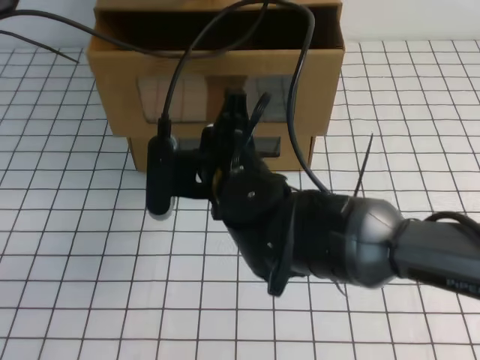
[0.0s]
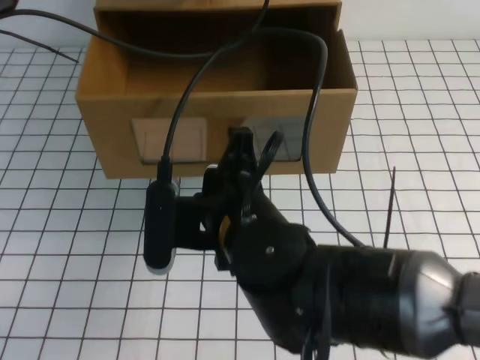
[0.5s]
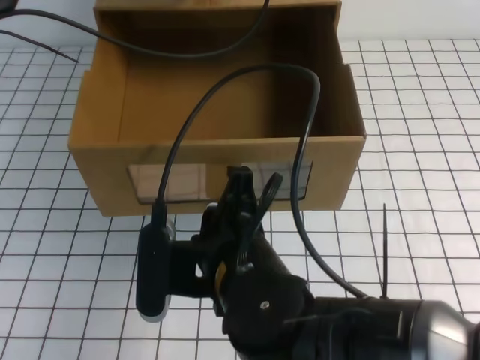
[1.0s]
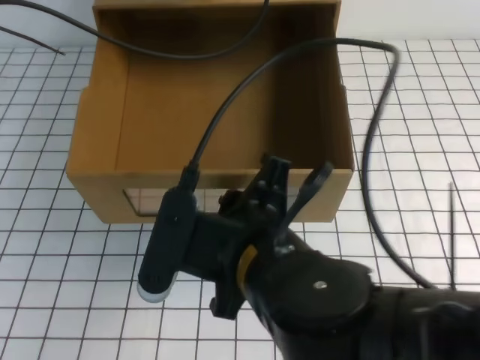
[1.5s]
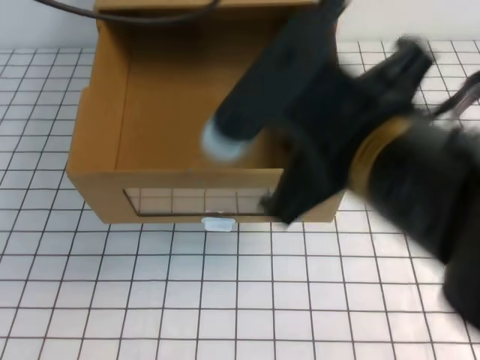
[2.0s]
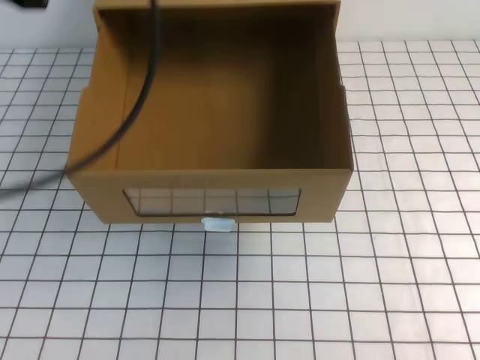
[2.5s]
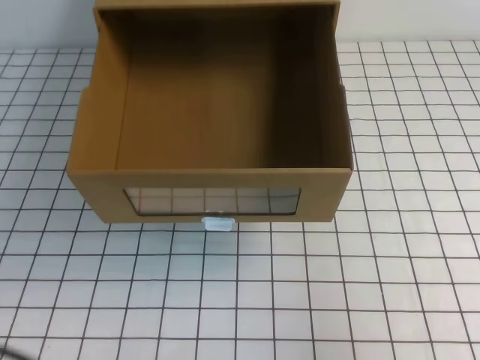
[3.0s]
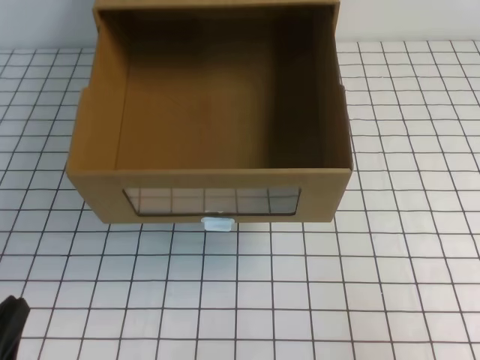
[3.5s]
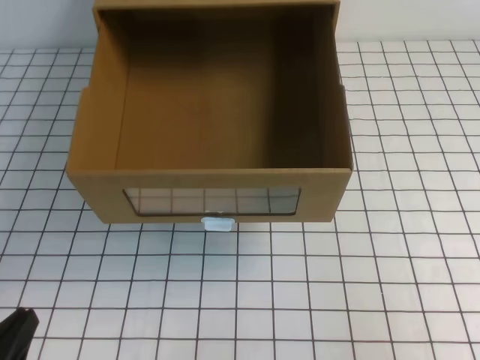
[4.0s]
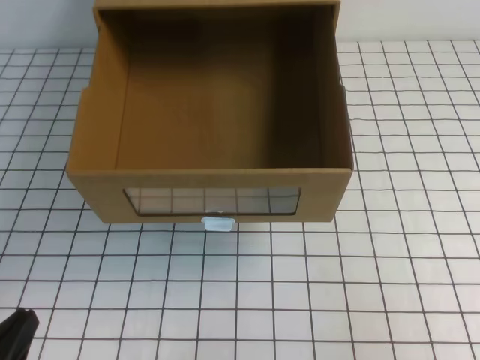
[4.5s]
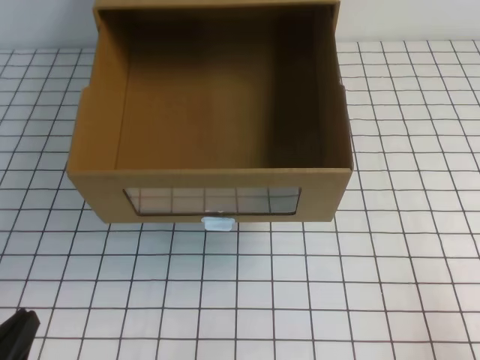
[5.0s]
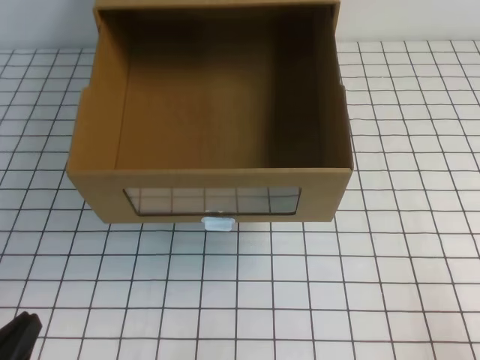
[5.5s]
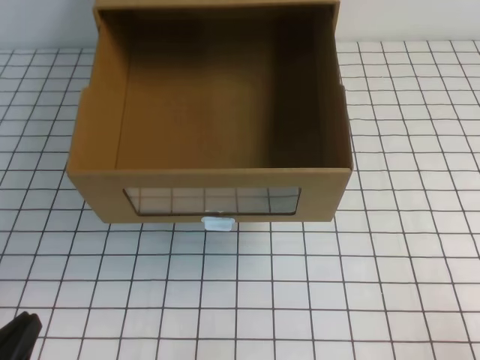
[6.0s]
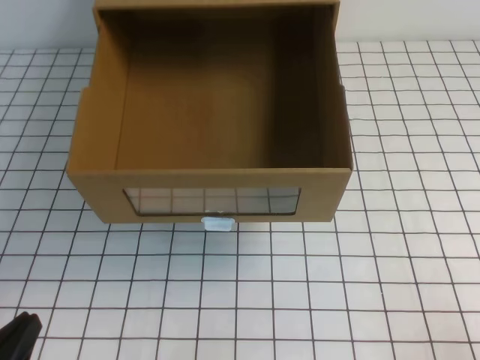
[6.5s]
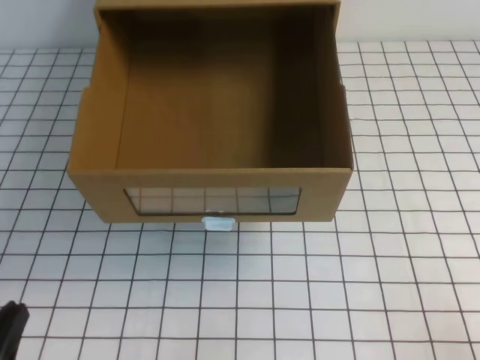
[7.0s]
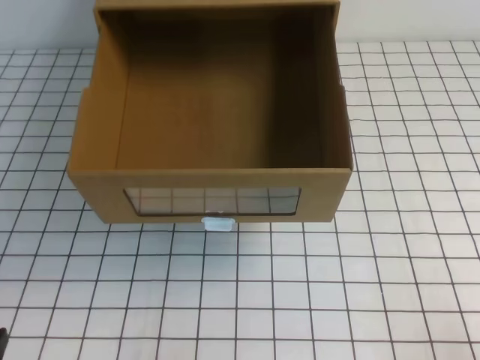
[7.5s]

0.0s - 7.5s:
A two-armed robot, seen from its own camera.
Task of the whole recording: open the shoebox on the white tablecloth.
Step, 0.0s - 7.5s: Open the shoe box.
0.0s - 2.0s: The left gripper shifts about 15 cm upward and backward; the right gripper goes approximately 20 cm upward, backward and to the right.
2.0s - 4.0s: The right gripper is displaced to the right and downward by approximately 25 cm. Meanwhile the left gripper shifts roughly 40 cm downward and backward.
4.0s - 5.5s: The right gripper shifts about 10 cm downward and backward.

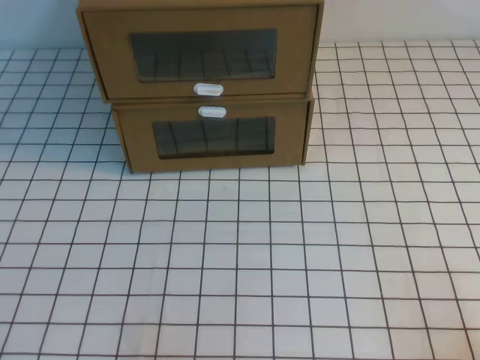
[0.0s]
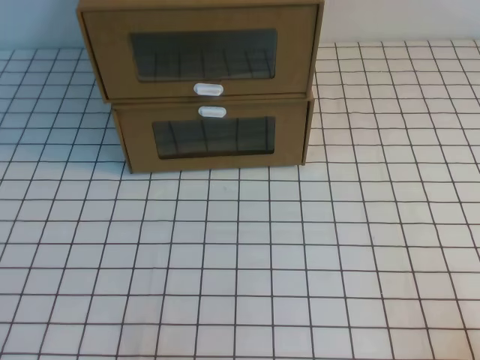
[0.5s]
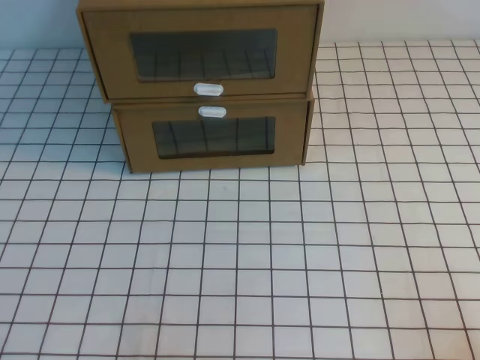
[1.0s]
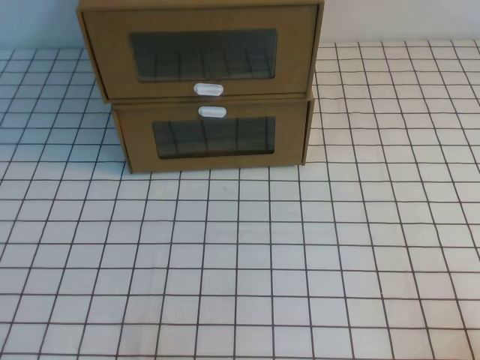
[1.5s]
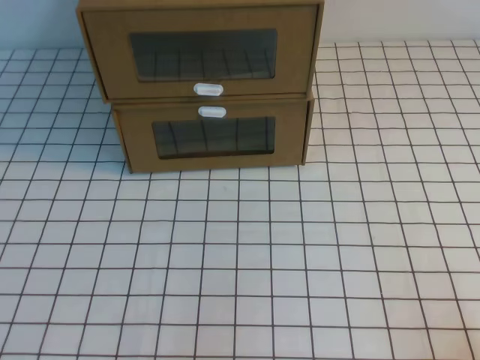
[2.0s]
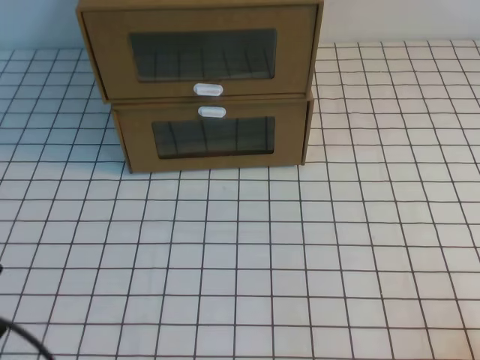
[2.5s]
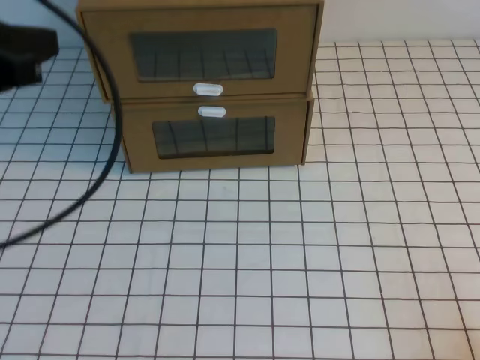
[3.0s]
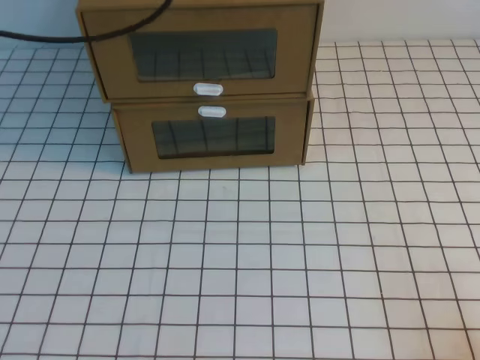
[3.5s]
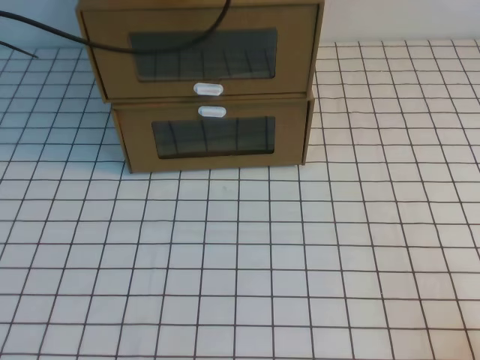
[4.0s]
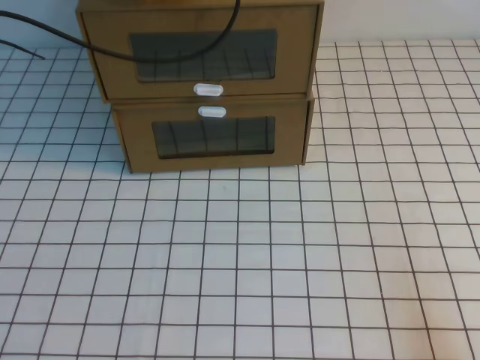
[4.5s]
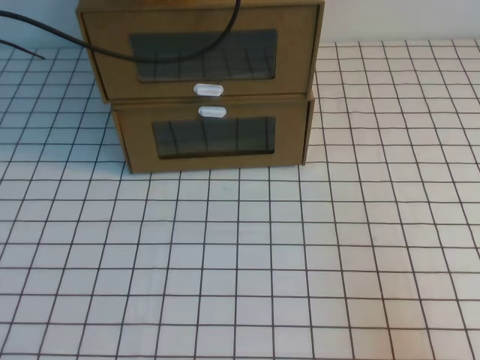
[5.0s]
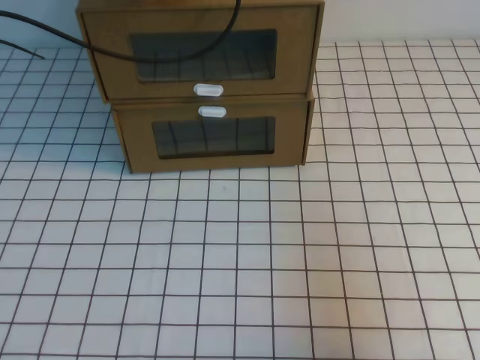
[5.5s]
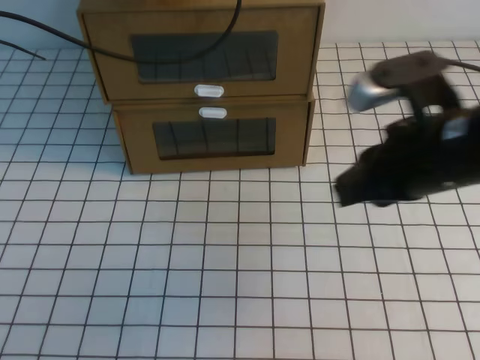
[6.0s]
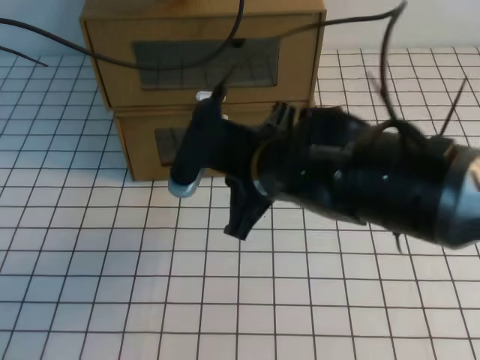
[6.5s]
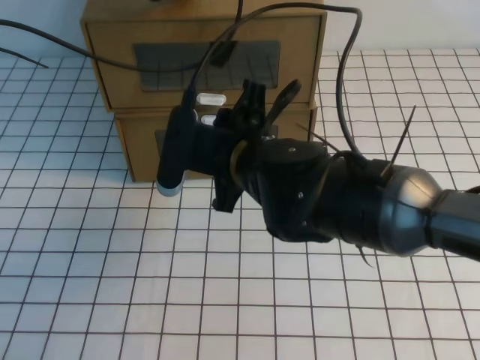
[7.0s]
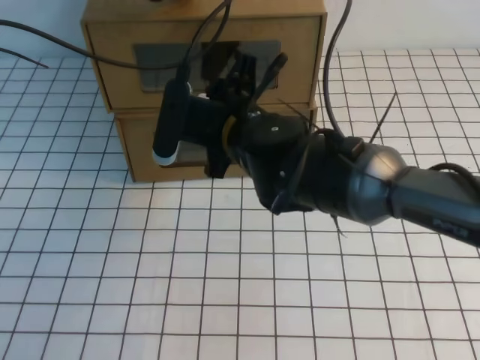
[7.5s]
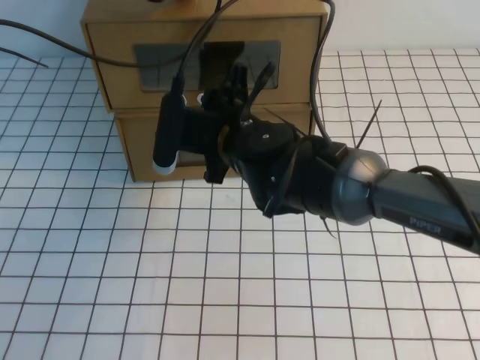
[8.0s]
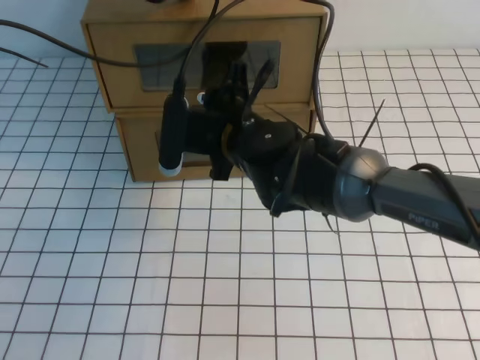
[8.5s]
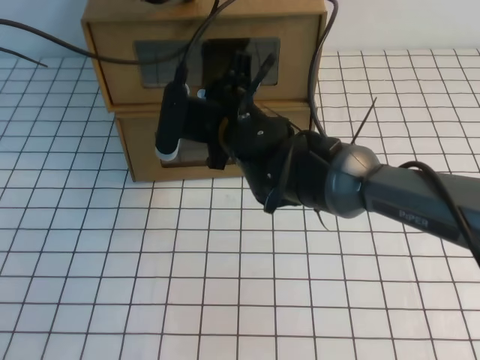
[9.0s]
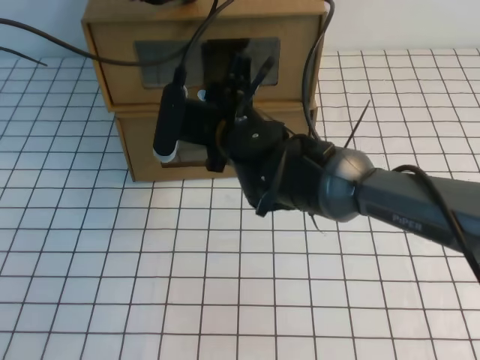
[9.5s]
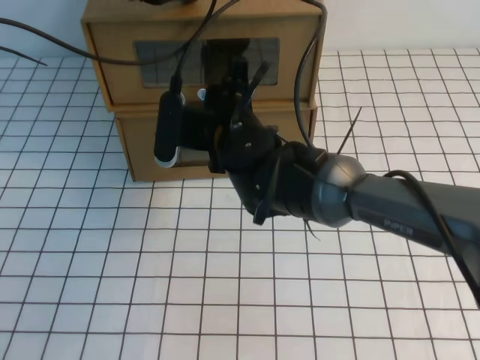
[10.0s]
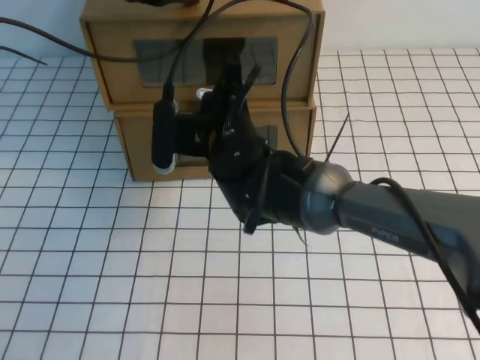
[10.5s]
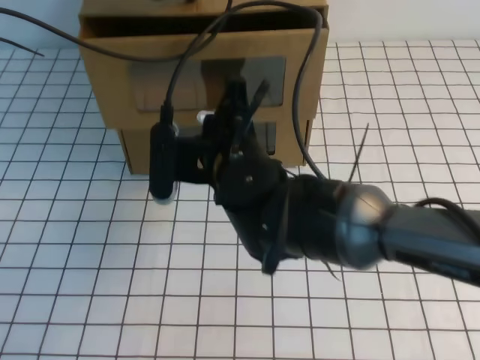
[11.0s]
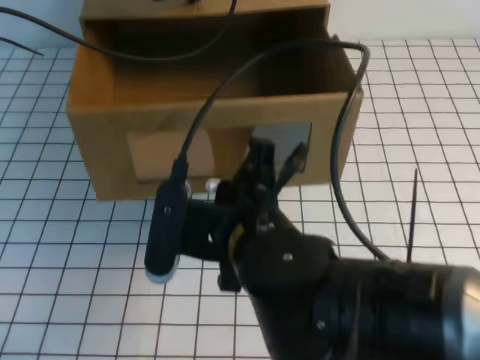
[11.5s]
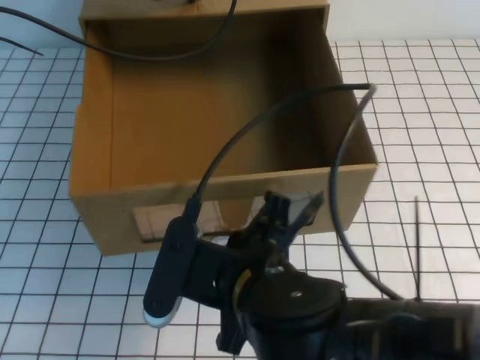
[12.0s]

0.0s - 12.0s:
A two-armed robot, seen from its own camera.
Task of the whole recording: open the shoebox on the white tablecloth.
2.0s - 4.0s: The left gripper heads forward and upward, covering roughly 50 cm.
4.0s - 6.0s: The right gripper goes approximately 30 cm forward, to the left and upward.
6.0s - 8.0s: The right gripper shifts approximately 20 cm to the left and forward, and opens.
8.0s - 10.0s: There are only small adjustments of the grippers.
10.0s - 12.0s: The right gripper is displaced backward by about 20 cm, and closes its fingers.

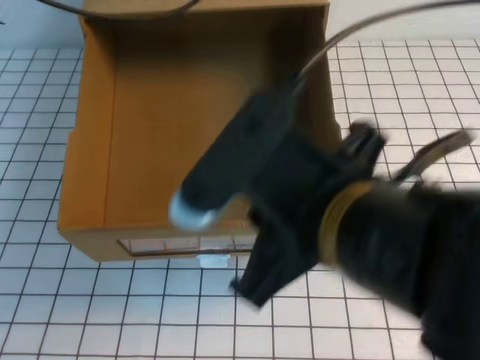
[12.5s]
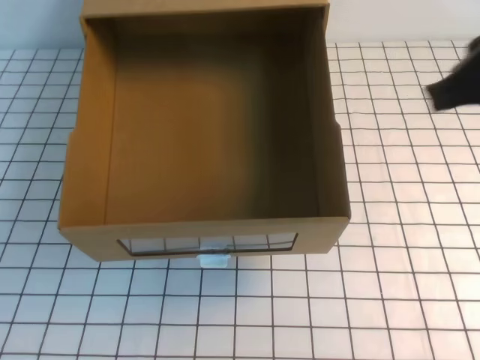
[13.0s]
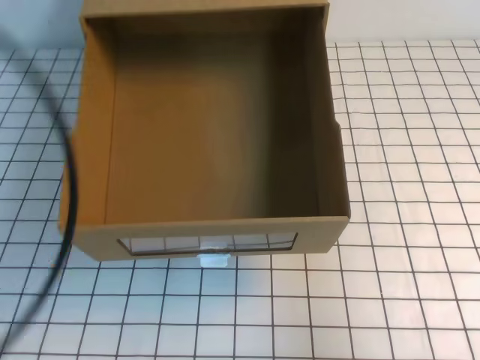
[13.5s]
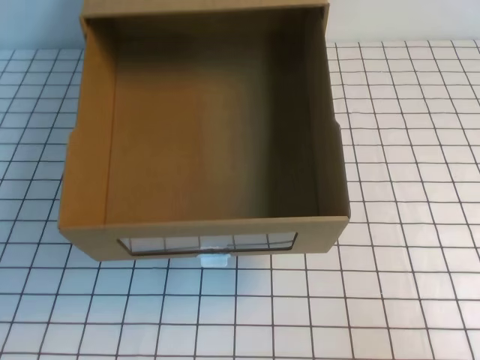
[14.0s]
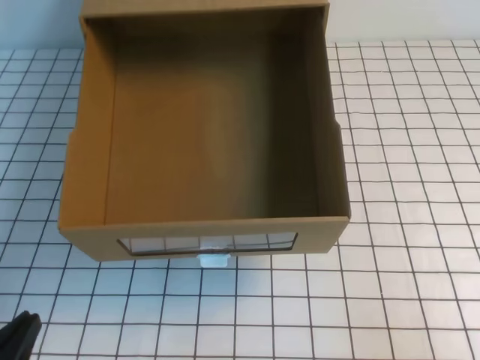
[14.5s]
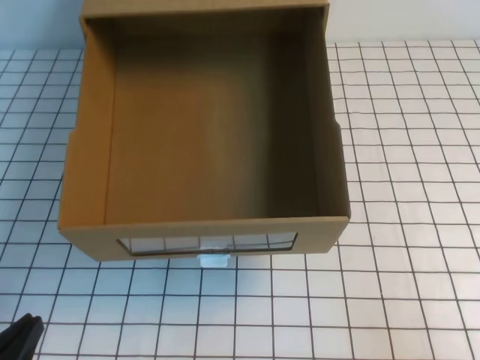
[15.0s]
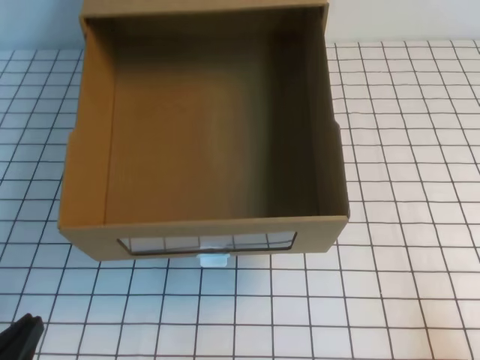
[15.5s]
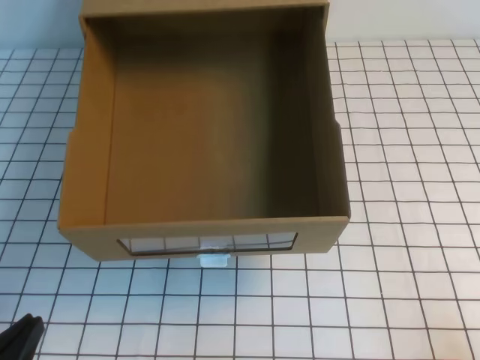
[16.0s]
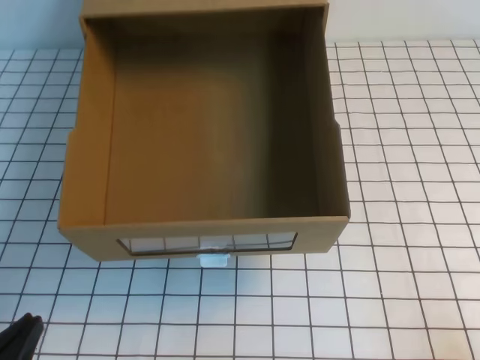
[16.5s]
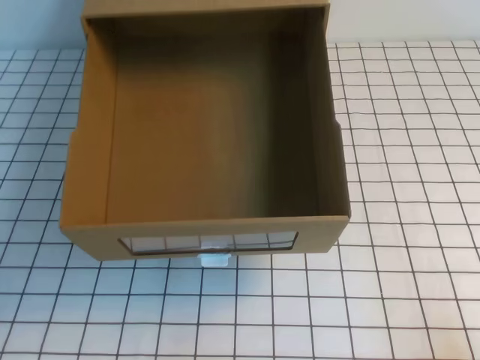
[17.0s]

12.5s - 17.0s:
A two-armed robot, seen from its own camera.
Task of the whole recording: open the shoebox on the white tablecloth.
Step, 12.5s - 17.0s: Open the shoe box.
12.5s - 14.5s: The left gripper heads backward and downward, covering approximately 40 cm, while the right gripper goes some 25 cm to the right and downward.

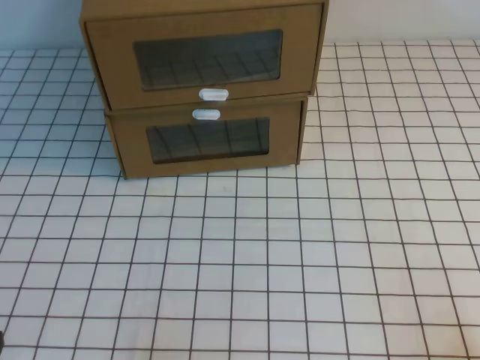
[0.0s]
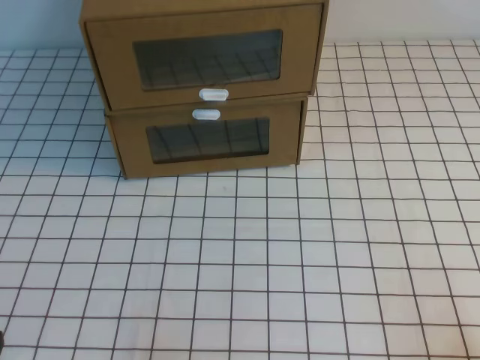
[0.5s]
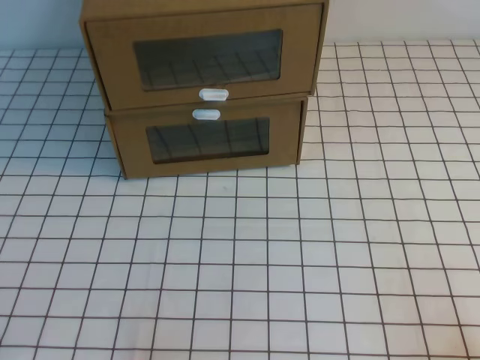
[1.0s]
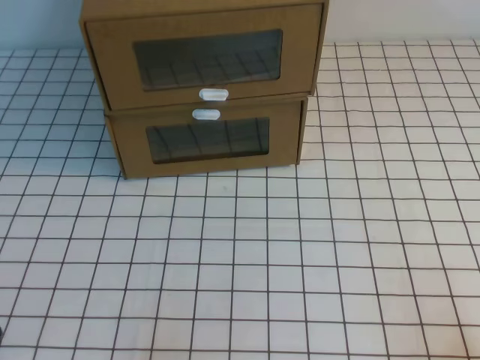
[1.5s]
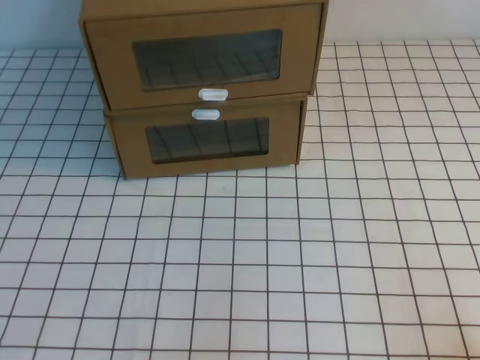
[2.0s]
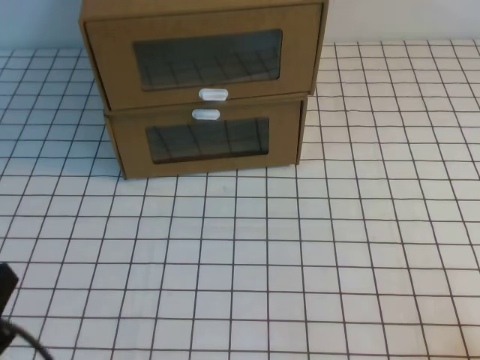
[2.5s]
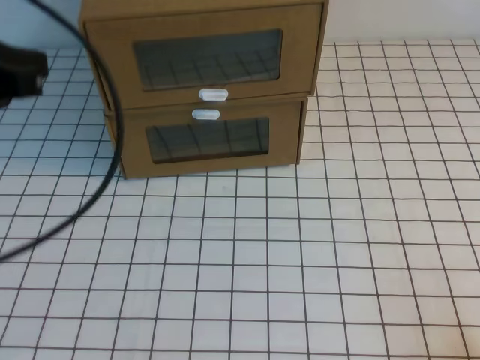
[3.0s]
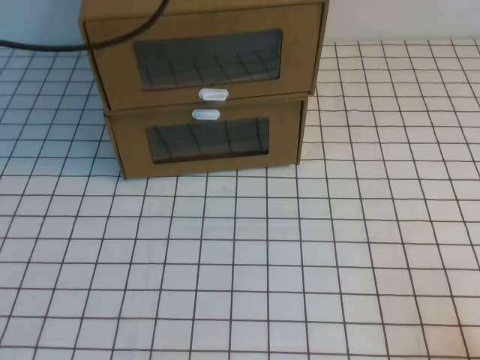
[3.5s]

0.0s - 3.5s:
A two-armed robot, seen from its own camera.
Task of the whole recording: open the shoebox on the white tablecloth.
2.0s - 3.5s: The left gripper is displaced forward and upward by approximately 40 cm.
